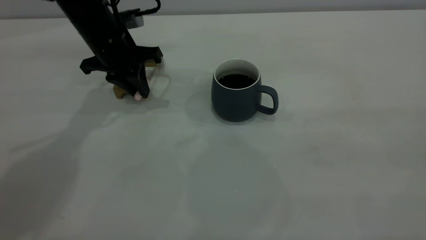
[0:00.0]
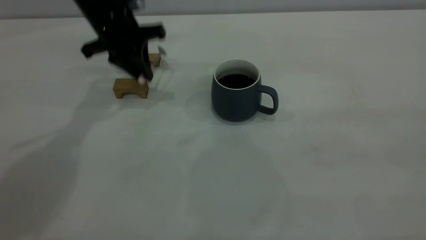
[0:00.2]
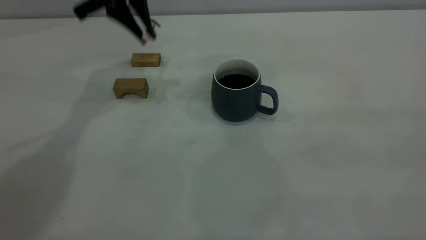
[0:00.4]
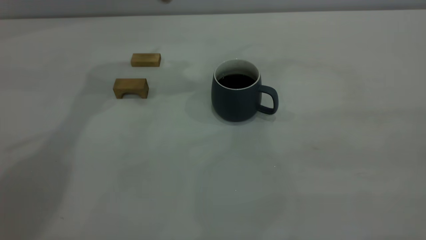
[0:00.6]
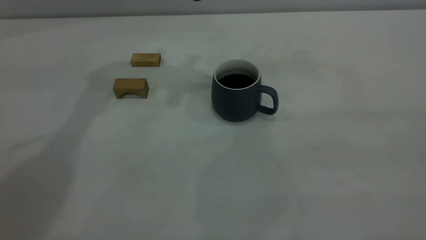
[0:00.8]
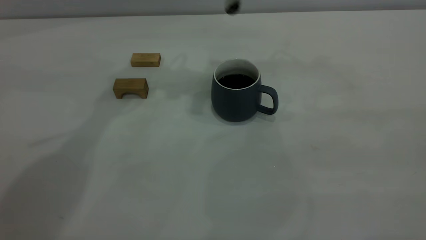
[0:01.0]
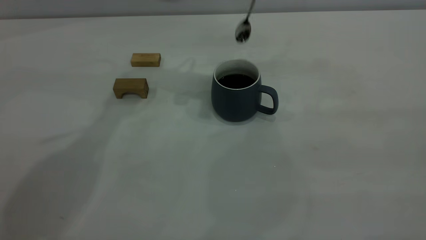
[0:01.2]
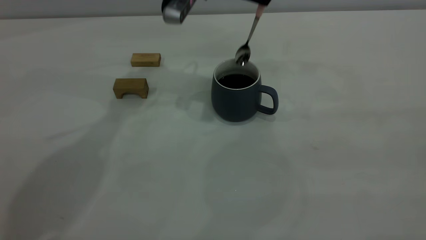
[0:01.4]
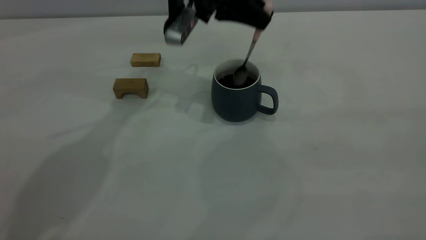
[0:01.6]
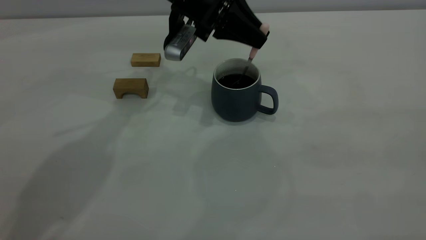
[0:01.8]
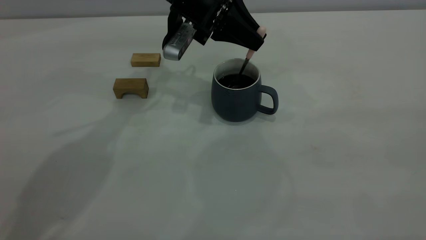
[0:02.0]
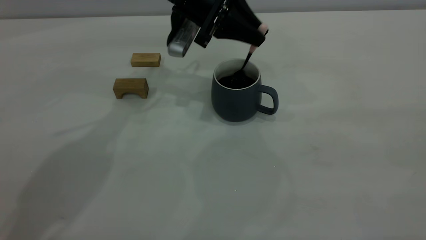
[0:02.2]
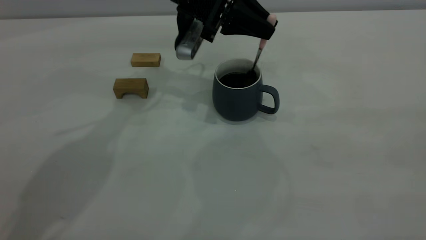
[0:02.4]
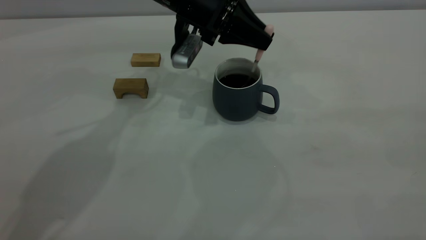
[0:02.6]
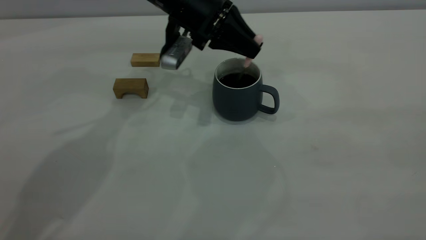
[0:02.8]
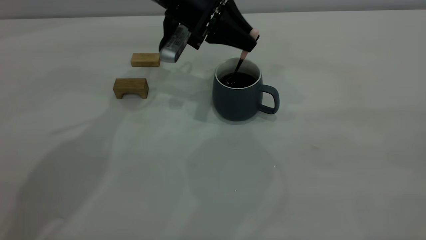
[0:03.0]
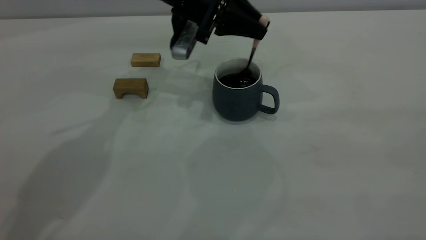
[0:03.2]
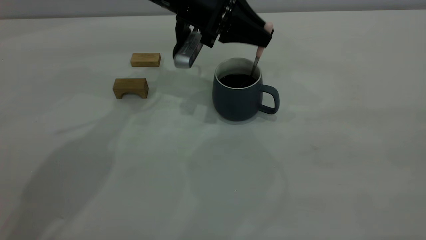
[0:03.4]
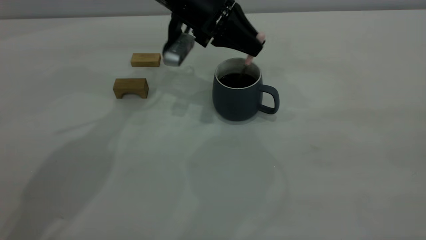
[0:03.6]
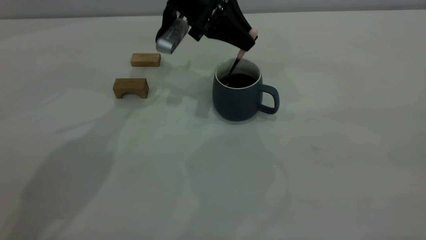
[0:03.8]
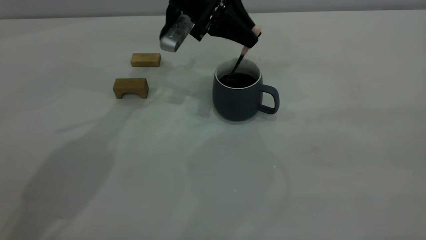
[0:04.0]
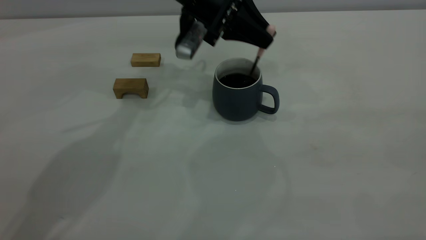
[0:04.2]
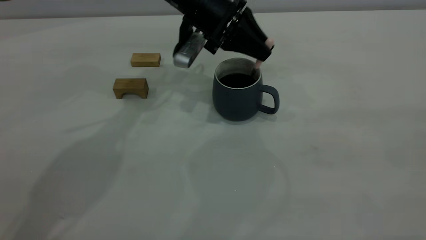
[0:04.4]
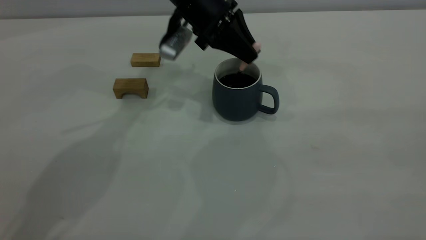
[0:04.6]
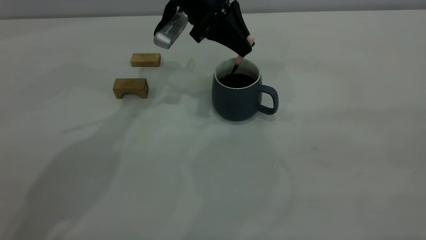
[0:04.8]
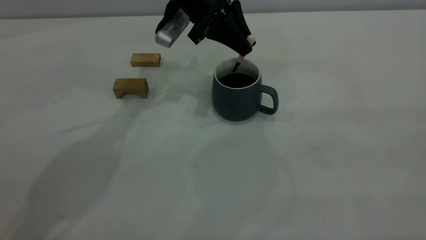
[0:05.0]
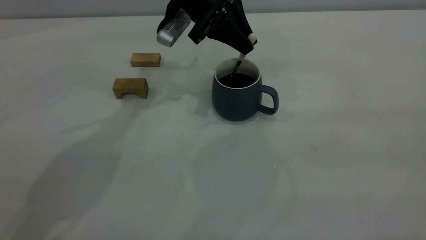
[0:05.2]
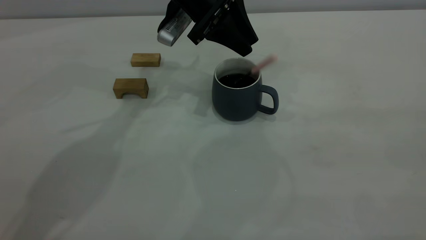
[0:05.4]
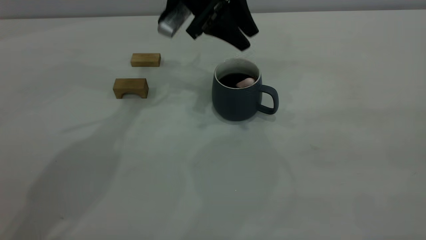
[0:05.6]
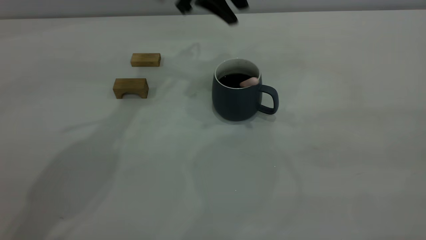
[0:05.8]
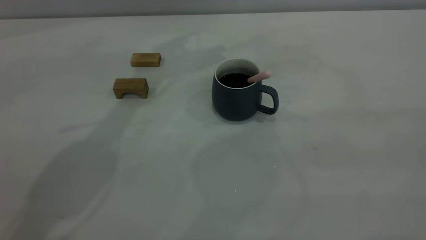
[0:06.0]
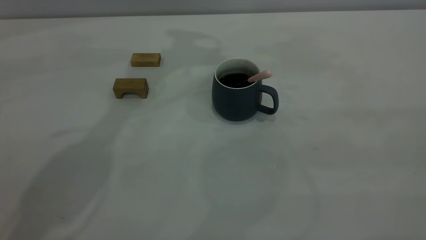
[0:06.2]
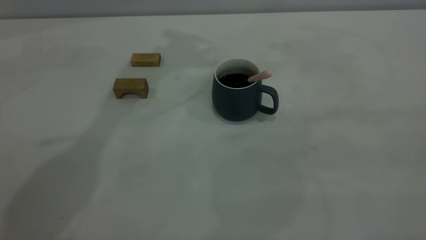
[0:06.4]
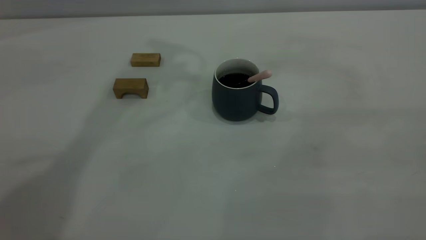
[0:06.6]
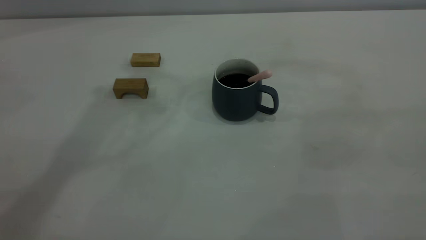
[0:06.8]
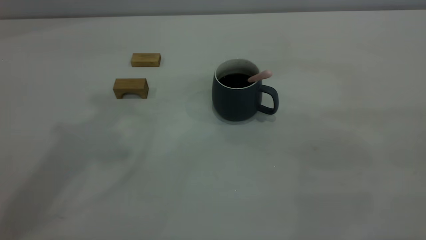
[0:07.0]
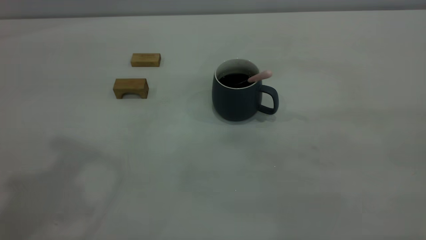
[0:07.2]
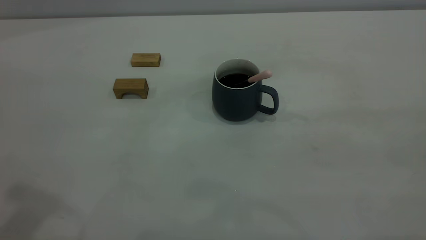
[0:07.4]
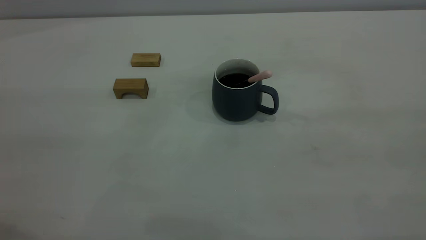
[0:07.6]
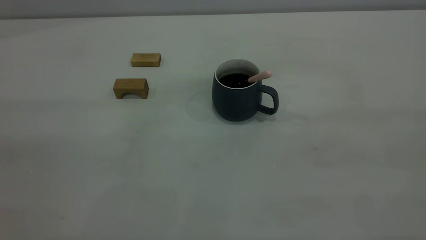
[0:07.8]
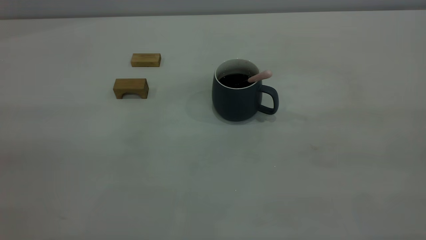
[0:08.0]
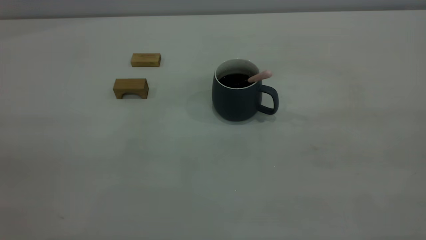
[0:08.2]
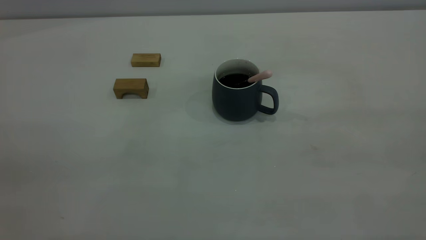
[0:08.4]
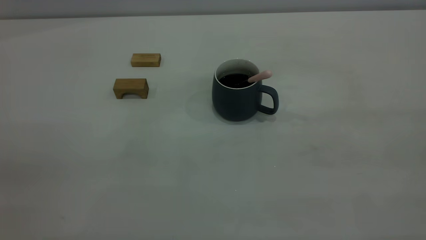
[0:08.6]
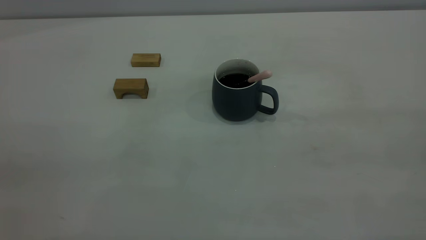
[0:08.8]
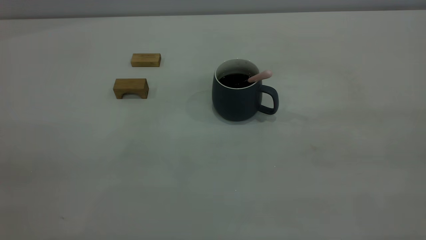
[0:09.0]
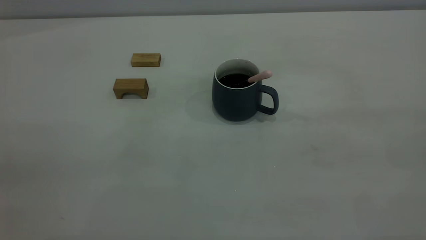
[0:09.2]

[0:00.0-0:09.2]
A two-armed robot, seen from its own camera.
Step, 0:00.4 to 0:05.6: Stir the coffee in the cup.
0:00.0 to 0:01.6: The left gripper travels to the right by some 15 cm, and travels upward and back again, roughly 20 cm each way.
0:01.6 to 0:04.6: The grippers move only a little.
0:04.6 to 0:06.2: The left gripper shifts approximately 20 cm upward, and opens its fingers.
